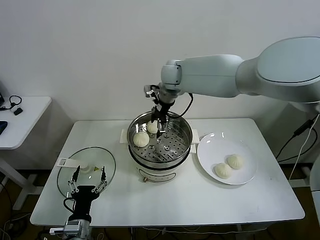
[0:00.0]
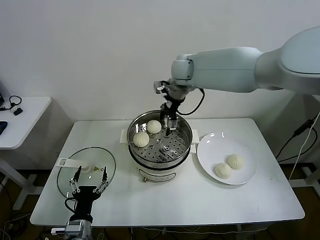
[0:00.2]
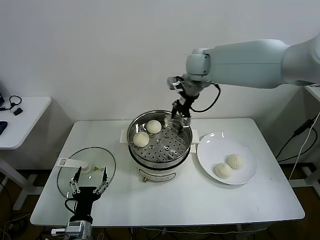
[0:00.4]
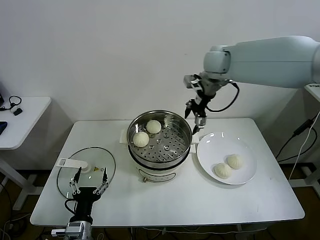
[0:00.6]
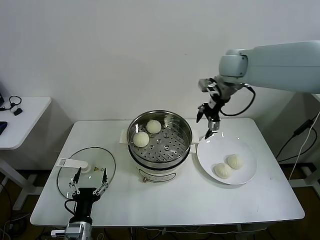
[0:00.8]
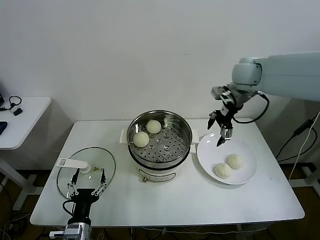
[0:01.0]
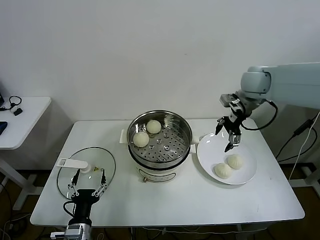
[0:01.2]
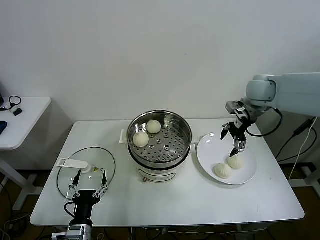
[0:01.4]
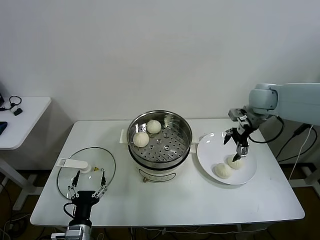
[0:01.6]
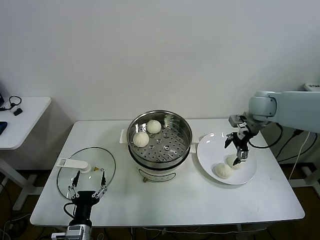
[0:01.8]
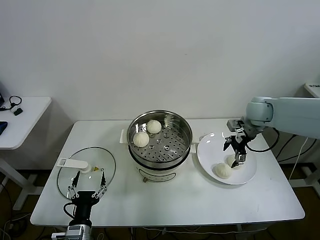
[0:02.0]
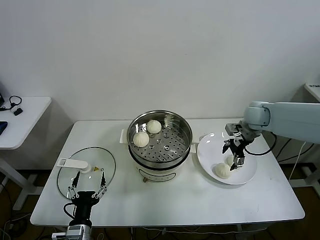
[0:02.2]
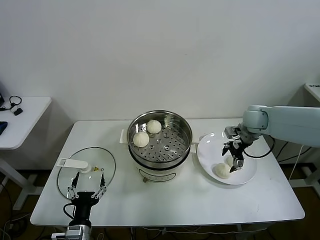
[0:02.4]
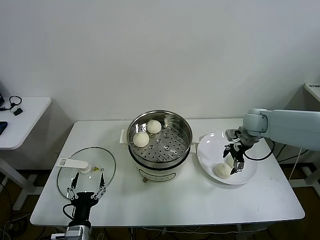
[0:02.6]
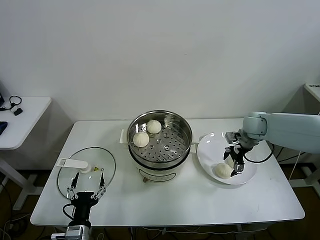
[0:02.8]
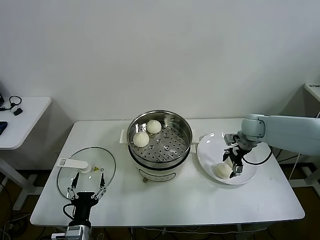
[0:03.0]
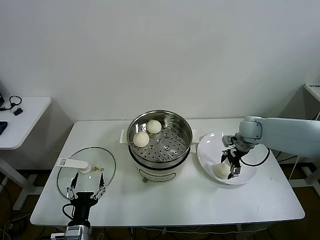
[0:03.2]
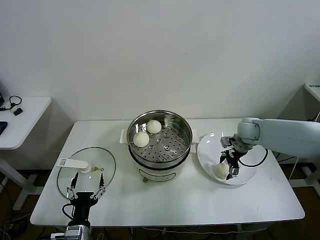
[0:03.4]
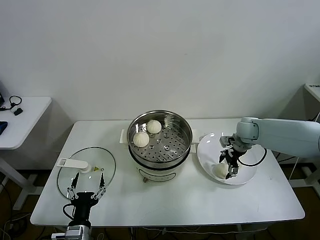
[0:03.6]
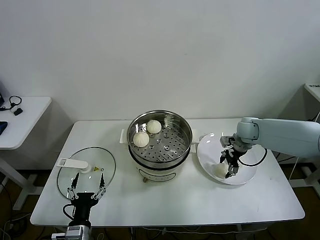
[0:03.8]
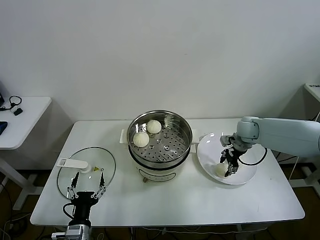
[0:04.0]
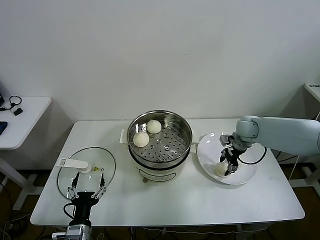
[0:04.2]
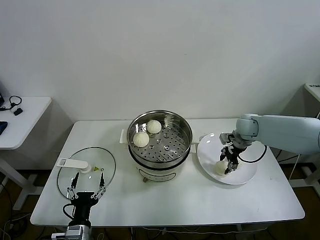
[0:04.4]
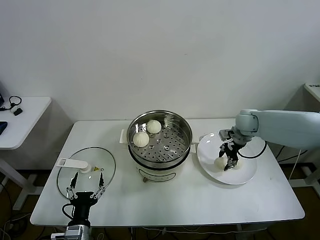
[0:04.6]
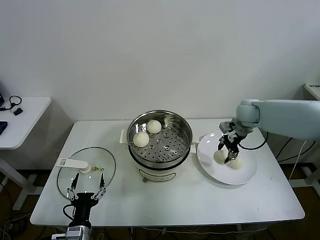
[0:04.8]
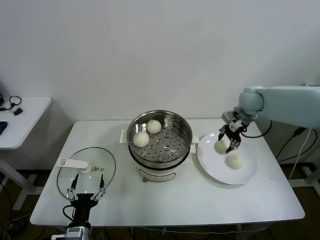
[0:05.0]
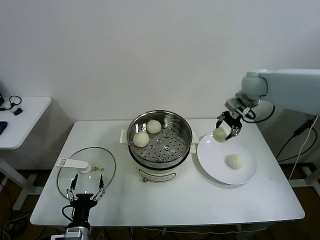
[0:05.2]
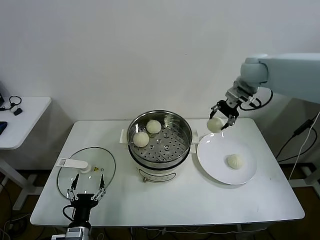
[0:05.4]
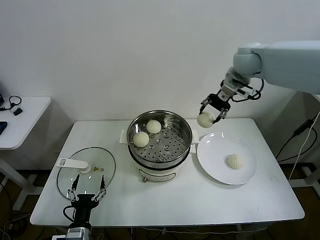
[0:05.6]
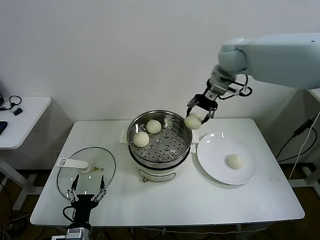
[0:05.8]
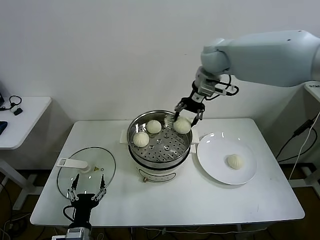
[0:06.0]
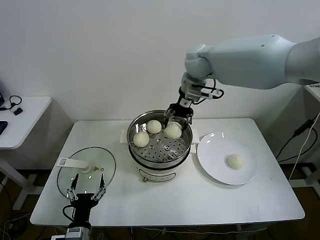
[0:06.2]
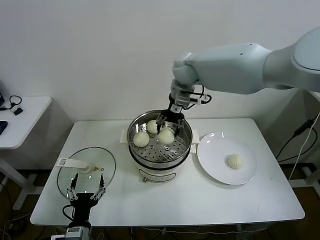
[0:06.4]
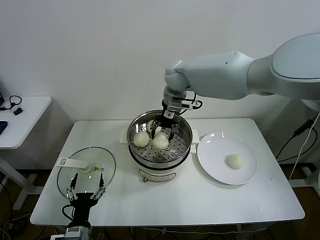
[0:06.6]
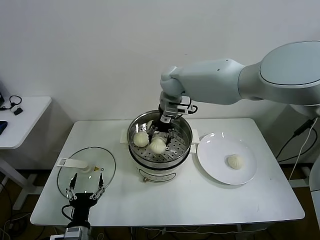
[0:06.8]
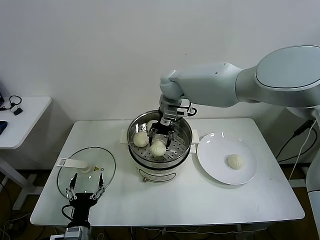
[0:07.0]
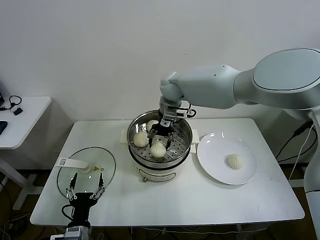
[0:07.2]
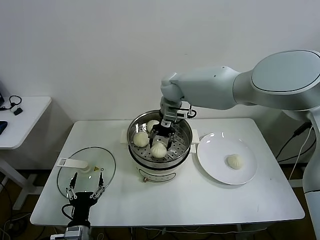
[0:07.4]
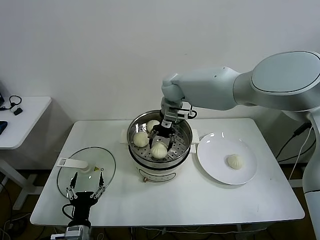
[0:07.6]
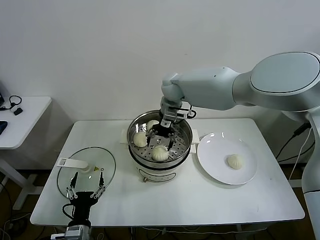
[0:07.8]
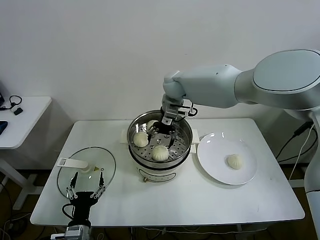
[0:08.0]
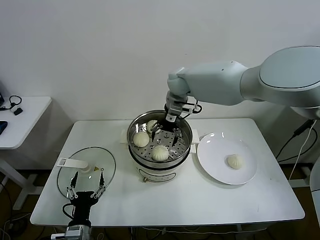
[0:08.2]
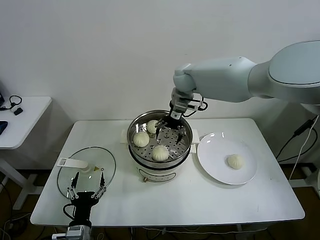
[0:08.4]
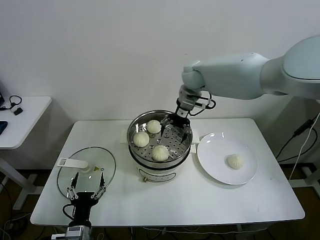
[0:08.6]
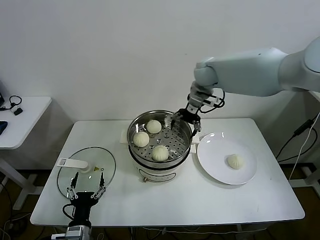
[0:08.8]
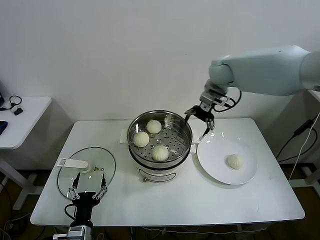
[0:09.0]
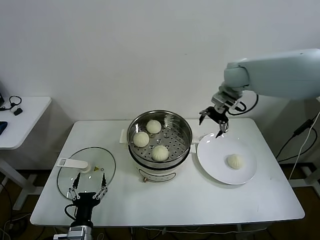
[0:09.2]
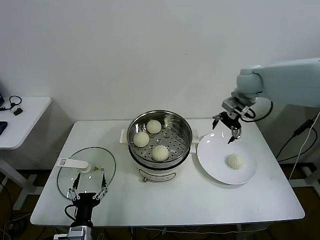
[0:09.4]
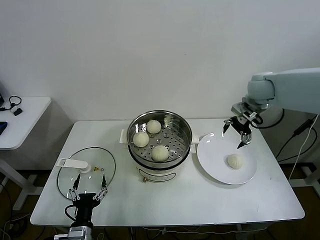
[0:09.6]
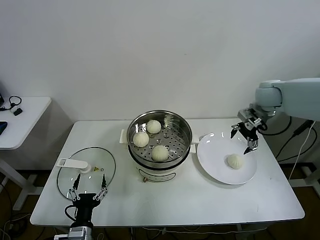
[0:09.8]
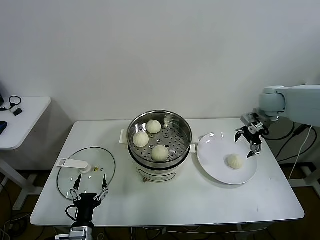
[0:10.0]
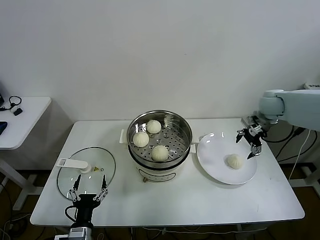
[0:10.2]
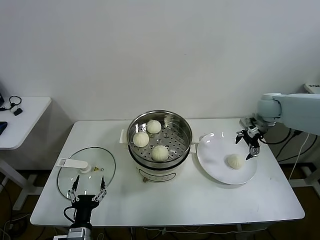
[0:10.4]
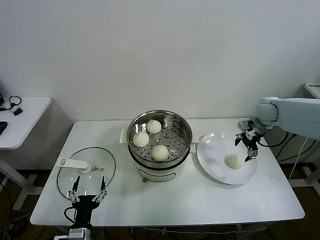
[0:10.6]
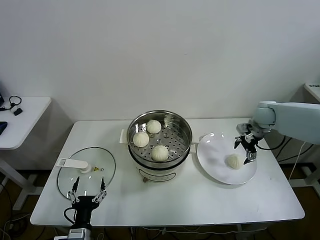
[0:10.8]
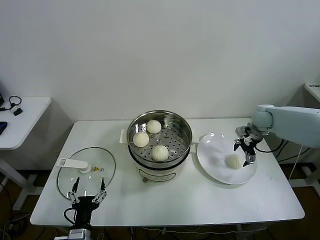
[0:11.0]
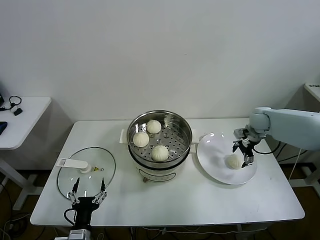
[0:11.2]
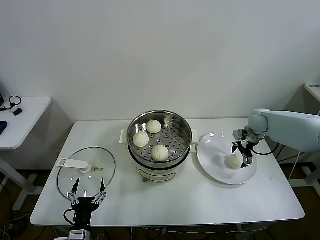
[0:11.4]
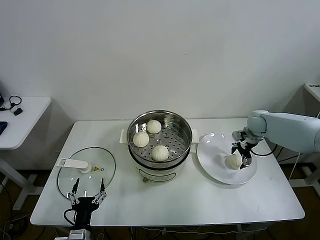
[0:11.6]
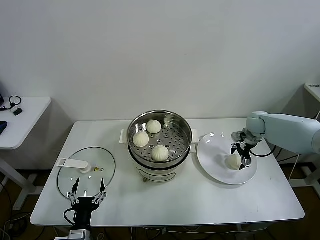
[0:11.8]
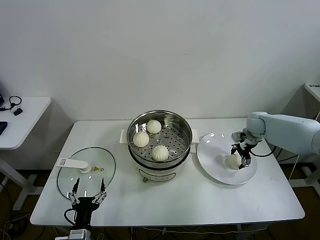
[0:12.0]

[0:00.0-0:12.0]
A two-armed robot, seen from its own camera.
Task of the whole recording: take steamed baozi put them in steamer.
Step, 0:00.0 to 0:04.0: Grasp the baozi in the plate with right gripper.
Step, 0:04.2 to 0:07.8: Place the baozi on the steamer with right gripper.
0:00.0 to 0:01.6: The right gripper shifts about 30 cm to the right.
0:01.6 to 0:03.0: The right gripper moves downward, about 15 cm.
0:03.0 to 0:04.4: The right gripper closes its fingers.
0:04.4 to 0:06.0: The right gripper heads upward and to the left, covering about 30 cm.
0:06.0 to 0:07.6: The right gripper is displaced downward and to the left by roughly 15 cm.
0:07.6 to 0:09.0: The right gripper shifts about 15 cm to the right and upward.
0:09.0 to 0:10.4: The right gripper shifts about 20 cm to the right and downward.
0:10.4 to 0:12.0: The right gripper travels downward by about 10 cm.

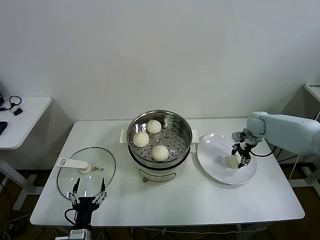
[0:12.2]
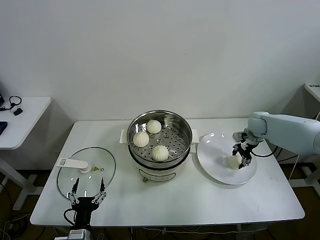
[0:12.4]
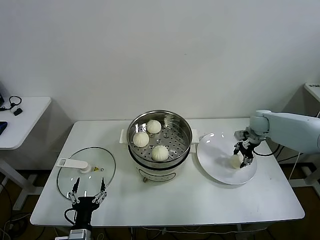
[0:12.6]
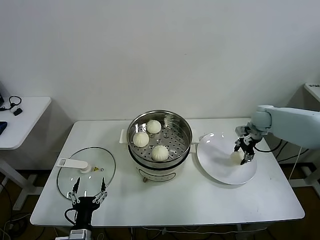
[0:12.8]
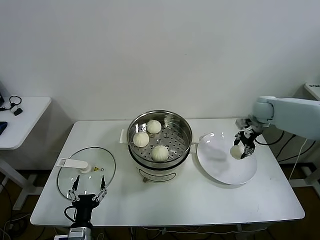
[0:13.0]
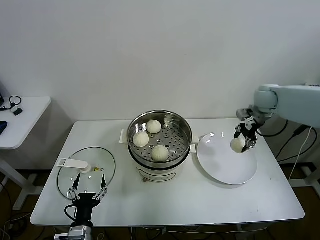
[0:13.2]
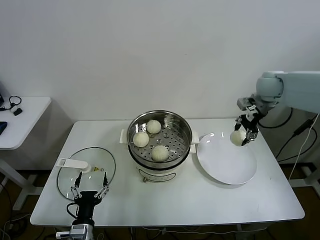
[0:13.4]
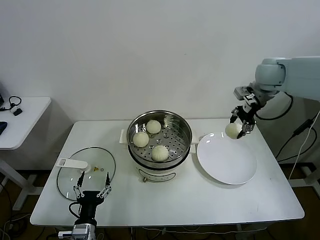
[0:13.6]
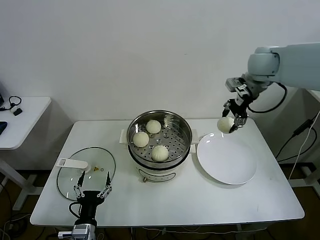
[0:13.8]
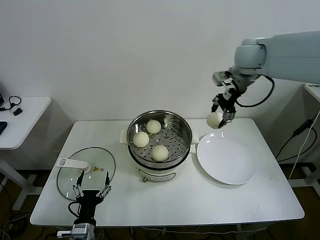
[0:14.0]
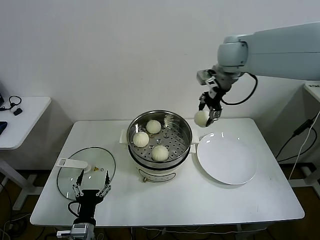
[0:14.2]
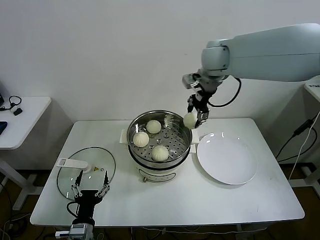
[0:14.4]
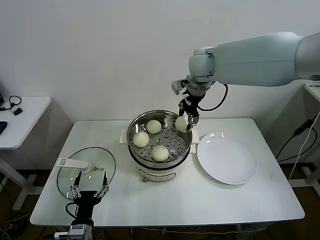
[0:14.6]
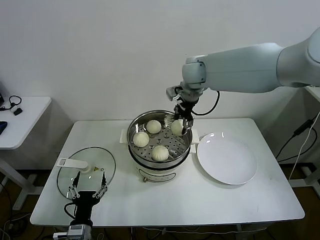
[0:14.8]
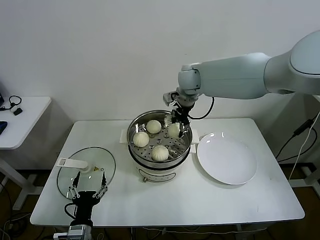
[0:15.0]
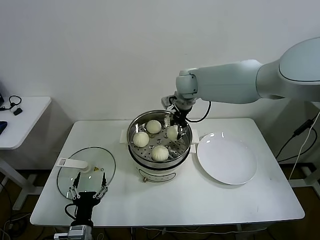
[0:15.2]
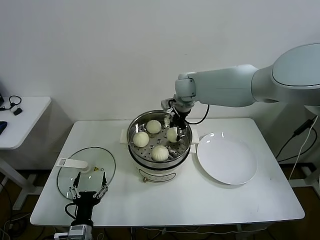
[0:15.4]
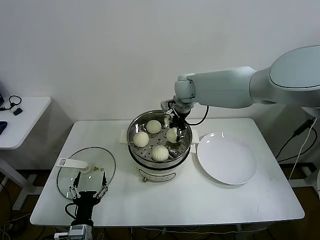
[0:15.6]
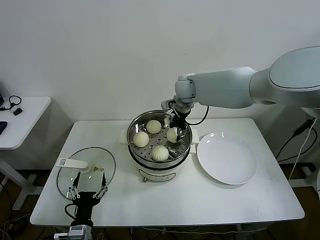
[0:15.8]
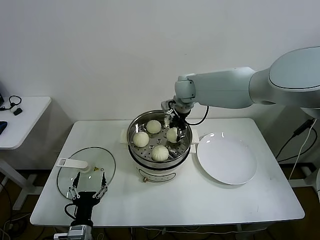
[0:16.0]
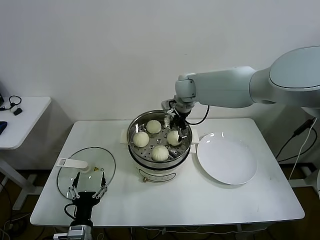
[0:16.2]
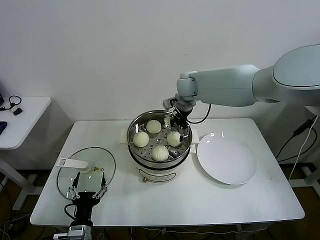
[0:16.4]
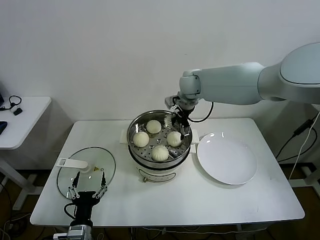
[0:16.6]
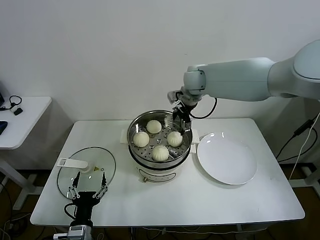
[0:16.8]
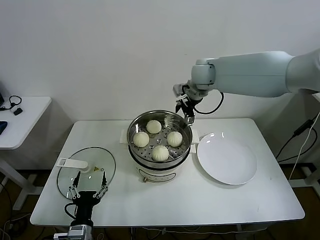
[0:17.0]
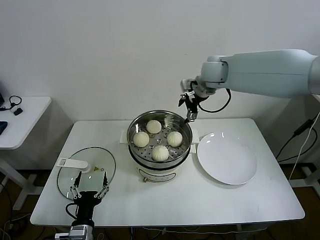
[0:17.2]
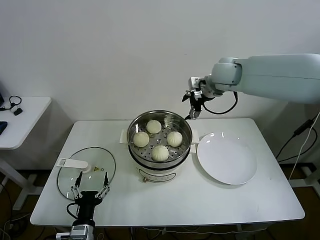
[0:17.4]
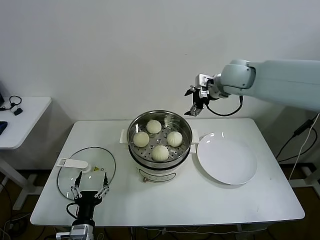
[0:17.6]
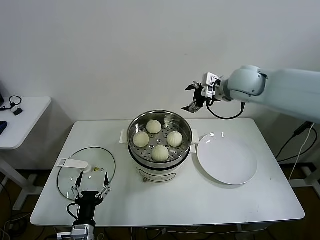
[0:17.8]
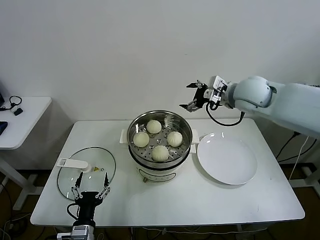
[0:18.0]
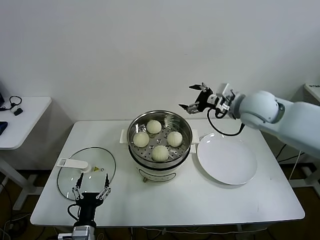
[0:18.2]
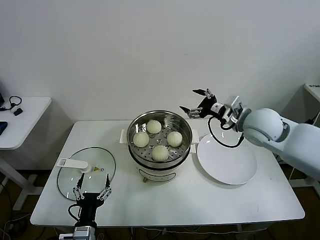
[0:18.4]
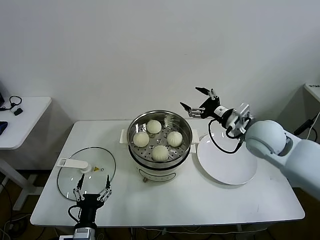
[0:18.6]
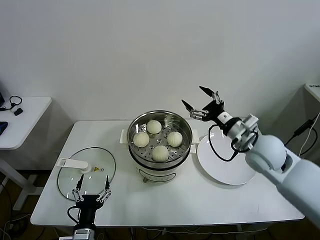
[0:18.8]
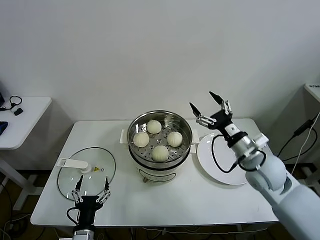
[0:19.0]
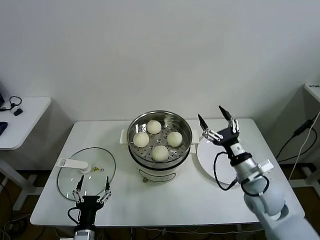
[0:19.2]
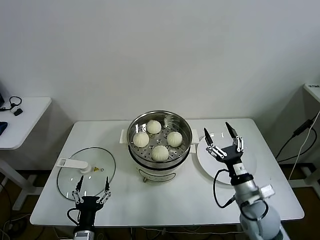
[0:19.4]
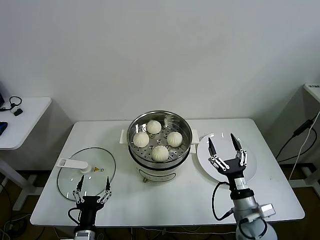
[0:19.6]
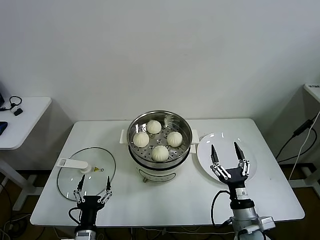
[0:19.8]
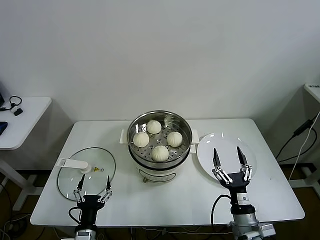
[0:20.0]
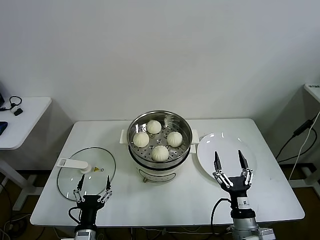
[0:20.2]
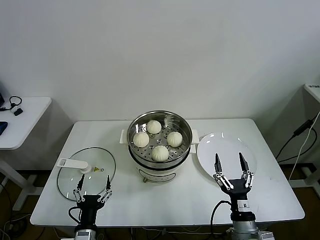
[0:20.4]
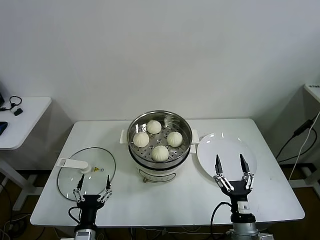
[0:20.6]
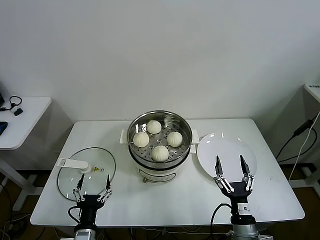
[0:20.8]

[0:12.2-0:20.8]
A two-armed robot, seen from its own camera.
Task of the whole recording: take steamed baozi put them in steamer.
Step, 0:12.4 to 0:16.2: Place the baozi on the steamer with right gripper.
0:12.2 to 0:13.6: The right gripper moves upward, approximately 25 cm.
0:13.6 to 0:15.0: The right gripper heads to the left, covering some 25 cm.
0:15.0 to 0:16.6: The right gripper opens up.
0:16.6 to 0:18.0: The right gripper travels to the right and backward by about 20 cm.
0:18.0 to 0:19.4: The right gripper shifts roughly 35 cm downward and backward.
0:19.4 to 0:20.8: The right gripper is displaced backward and downward by about 15 cm.

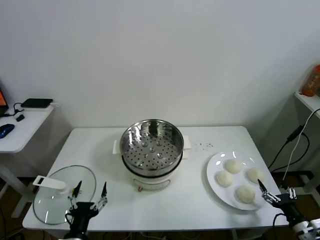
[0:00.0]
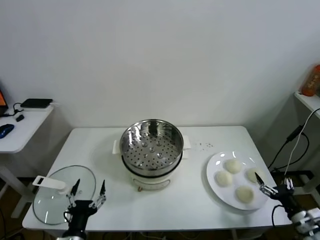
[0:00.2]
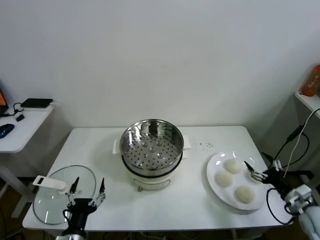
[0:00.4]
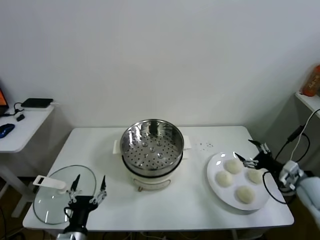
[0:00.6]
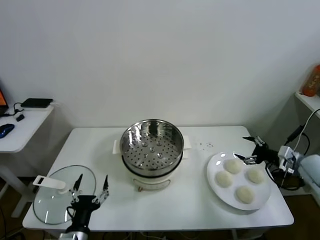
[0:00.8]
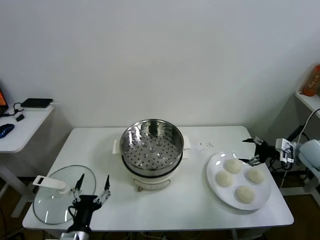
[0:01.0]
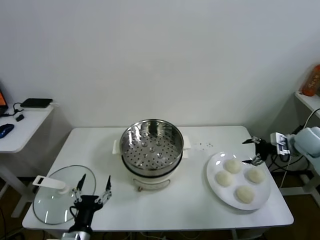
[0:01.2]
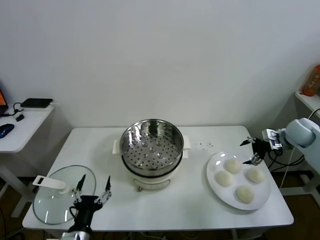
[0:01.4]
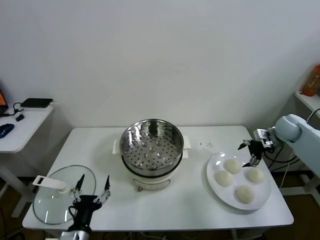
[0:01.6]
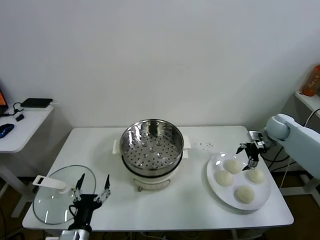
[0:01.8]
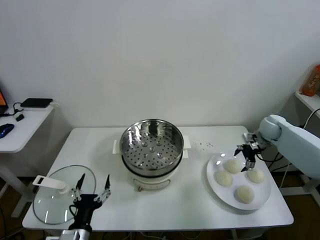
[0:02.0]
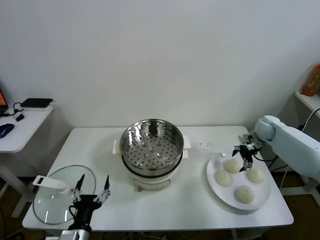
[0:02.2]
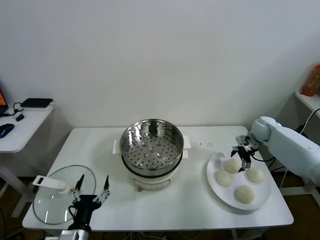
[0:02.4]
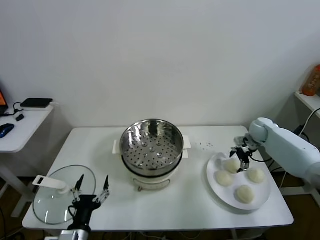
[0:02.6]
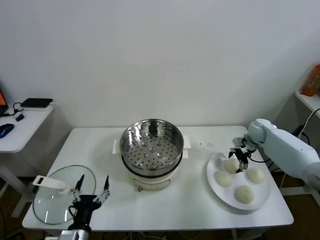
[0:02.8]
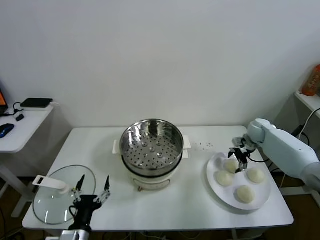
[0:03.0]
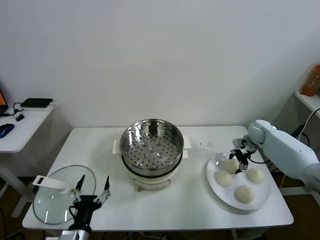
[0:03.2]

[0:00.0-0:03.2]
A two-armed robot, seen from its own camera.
Task of the whole recording: take steamed baozi put them in steamer.
0:01.6 to 0:03.2: The right gripper shifts roughly 5 cm downward, and closes its fingers.
